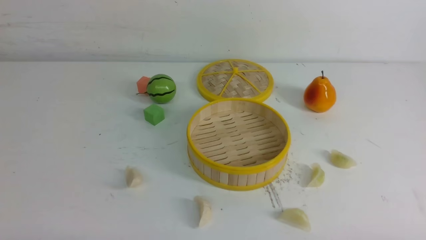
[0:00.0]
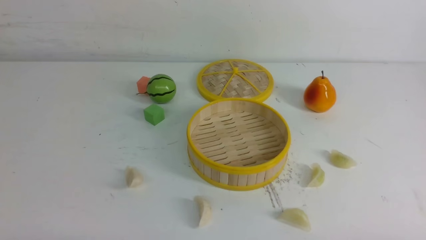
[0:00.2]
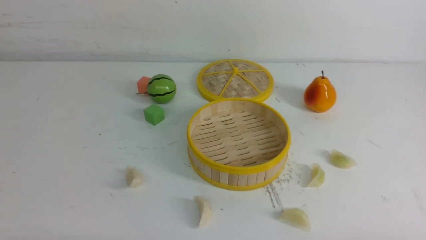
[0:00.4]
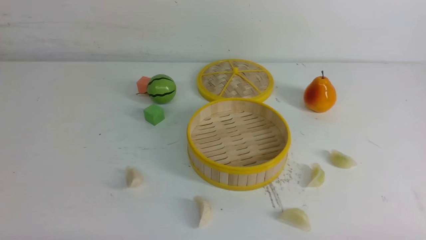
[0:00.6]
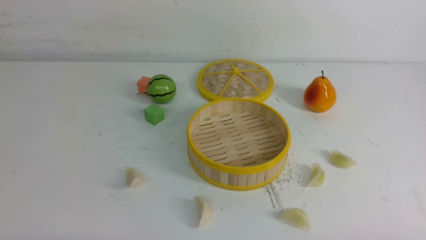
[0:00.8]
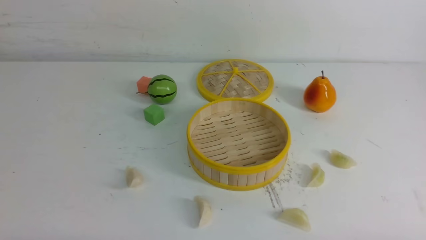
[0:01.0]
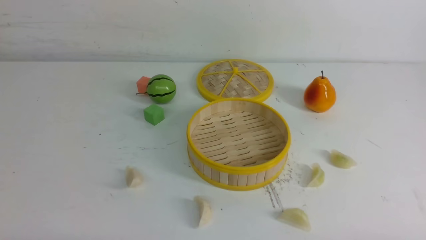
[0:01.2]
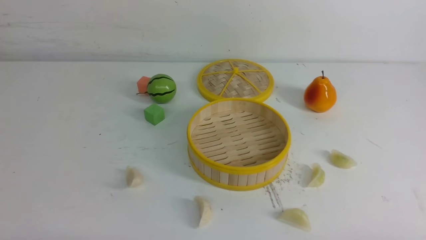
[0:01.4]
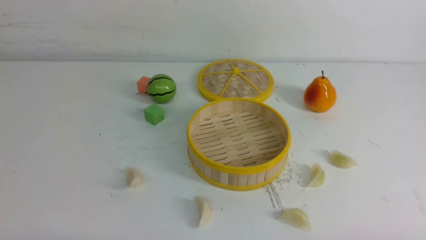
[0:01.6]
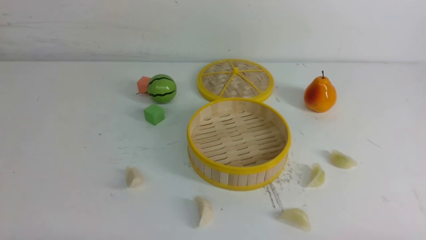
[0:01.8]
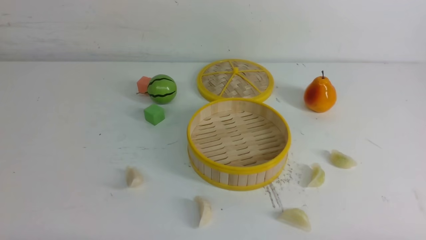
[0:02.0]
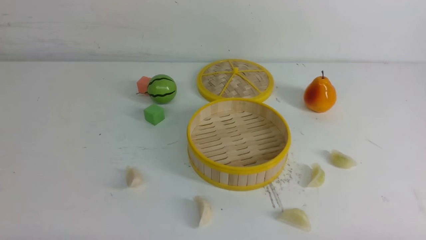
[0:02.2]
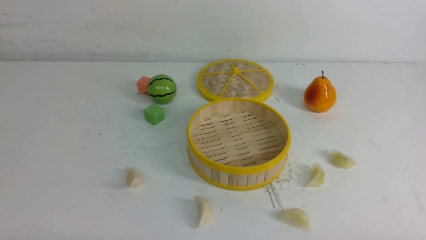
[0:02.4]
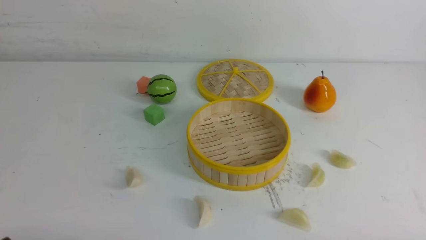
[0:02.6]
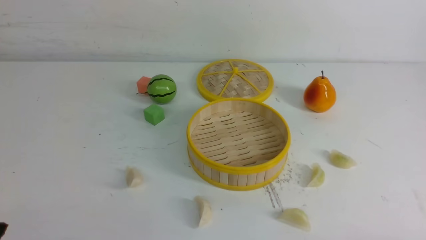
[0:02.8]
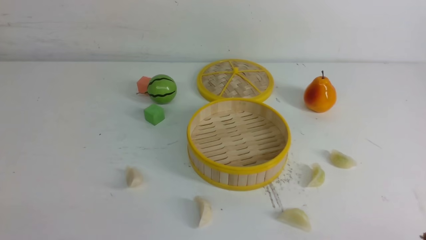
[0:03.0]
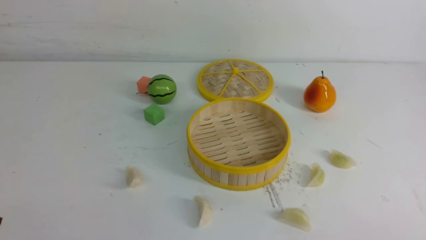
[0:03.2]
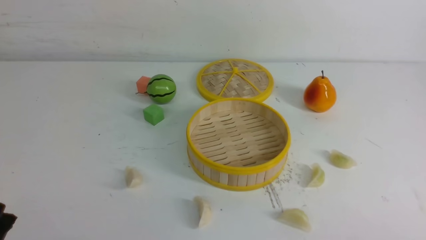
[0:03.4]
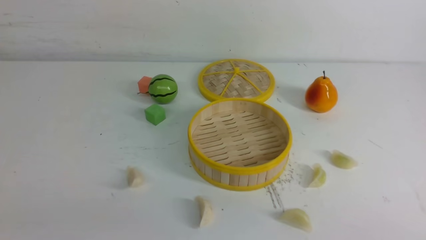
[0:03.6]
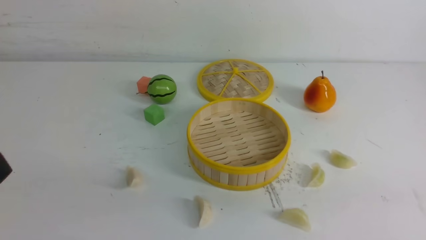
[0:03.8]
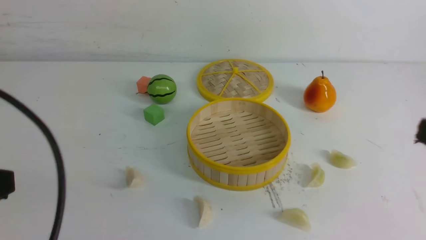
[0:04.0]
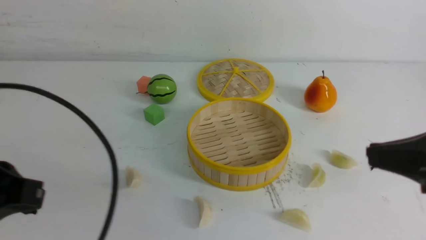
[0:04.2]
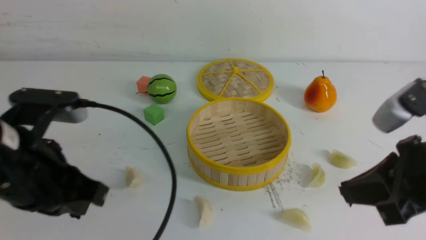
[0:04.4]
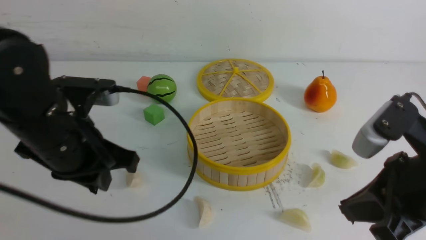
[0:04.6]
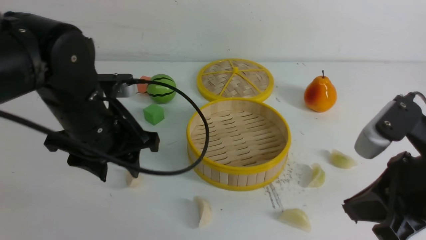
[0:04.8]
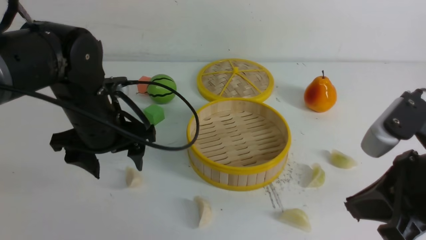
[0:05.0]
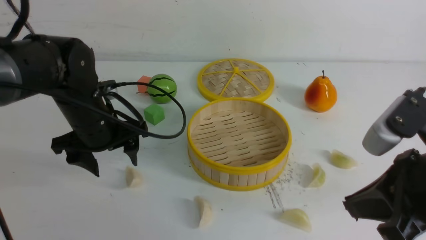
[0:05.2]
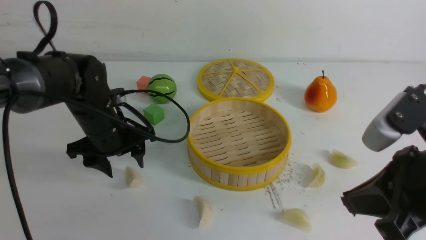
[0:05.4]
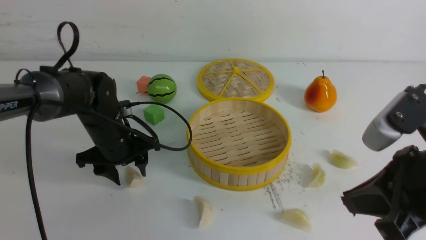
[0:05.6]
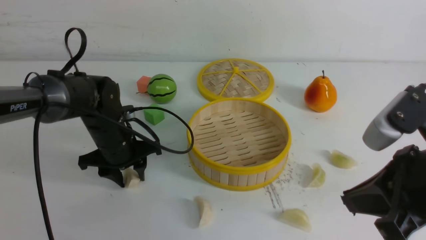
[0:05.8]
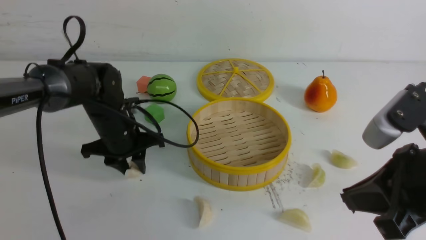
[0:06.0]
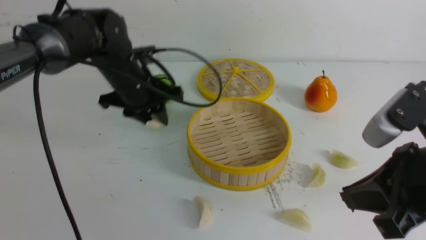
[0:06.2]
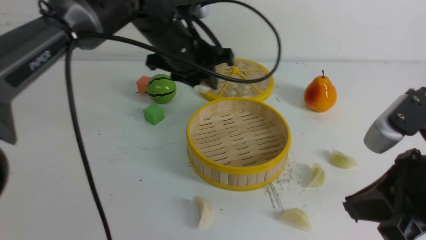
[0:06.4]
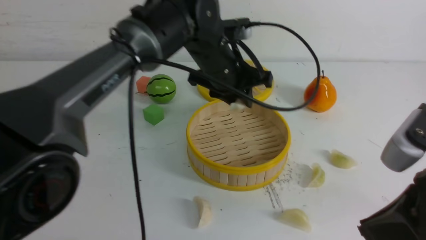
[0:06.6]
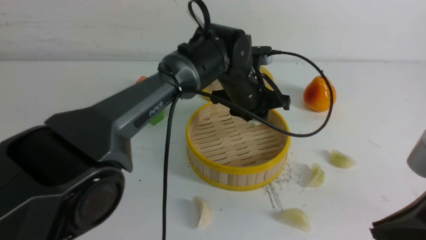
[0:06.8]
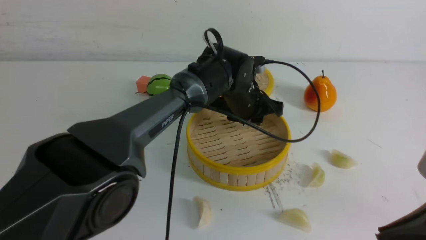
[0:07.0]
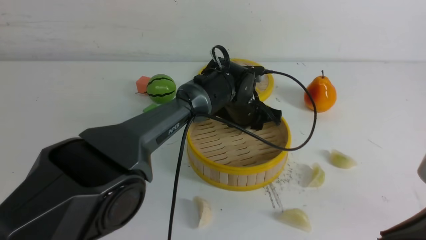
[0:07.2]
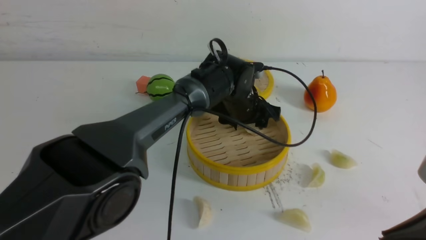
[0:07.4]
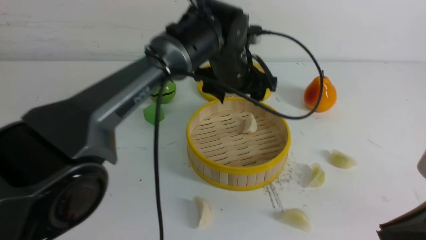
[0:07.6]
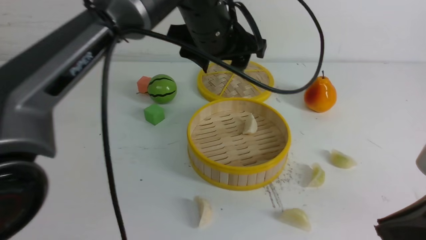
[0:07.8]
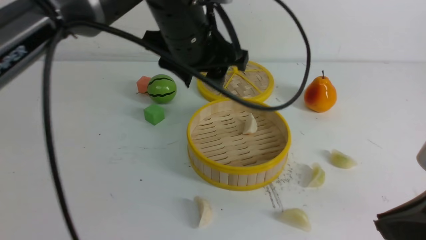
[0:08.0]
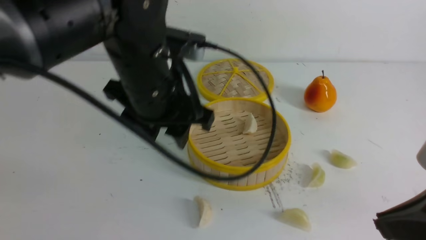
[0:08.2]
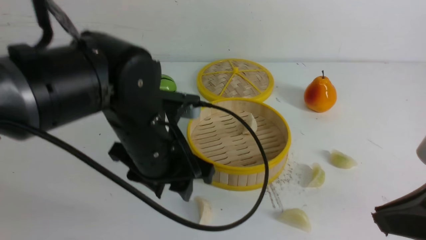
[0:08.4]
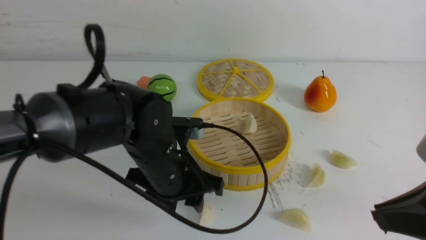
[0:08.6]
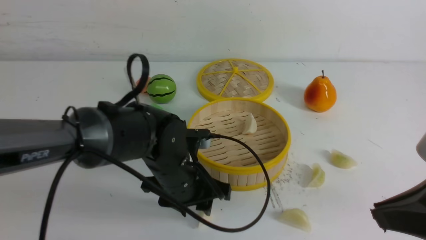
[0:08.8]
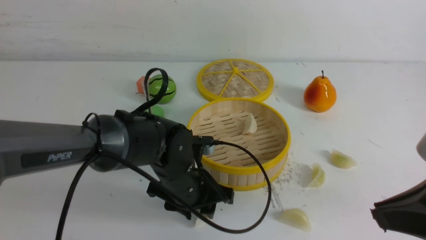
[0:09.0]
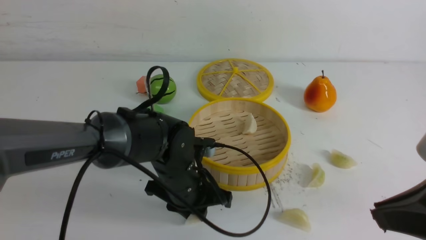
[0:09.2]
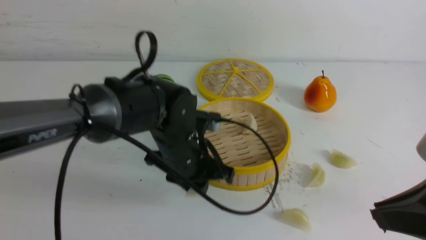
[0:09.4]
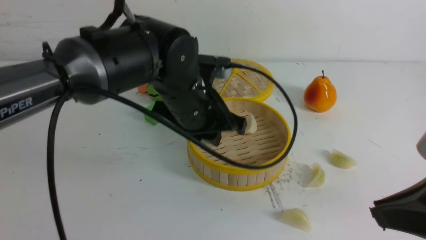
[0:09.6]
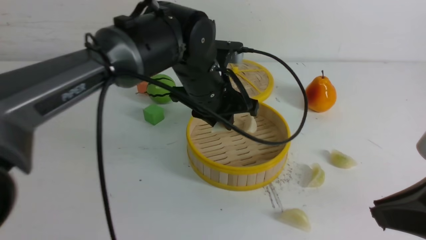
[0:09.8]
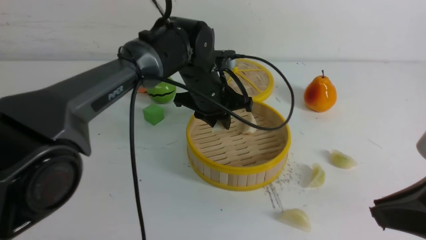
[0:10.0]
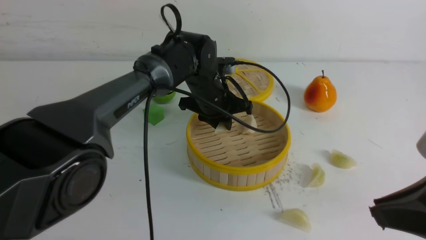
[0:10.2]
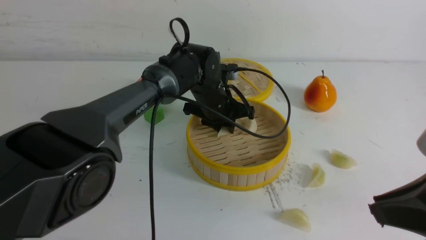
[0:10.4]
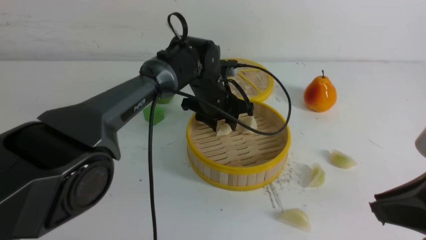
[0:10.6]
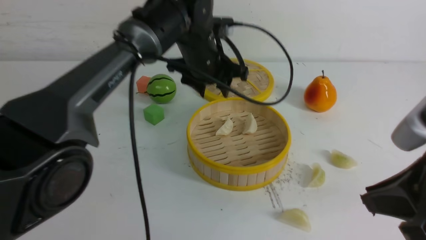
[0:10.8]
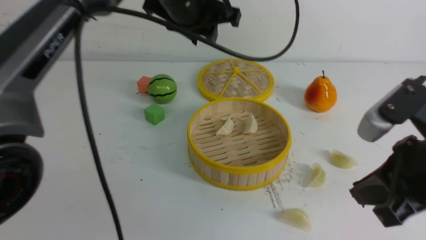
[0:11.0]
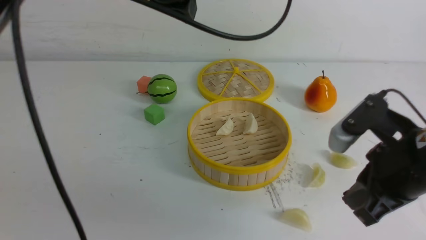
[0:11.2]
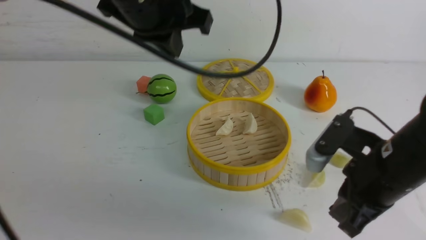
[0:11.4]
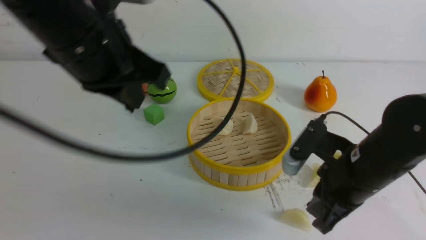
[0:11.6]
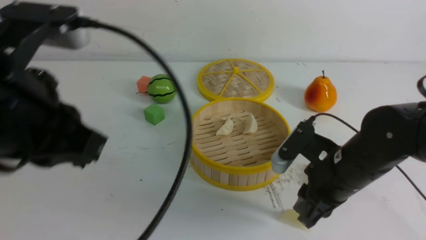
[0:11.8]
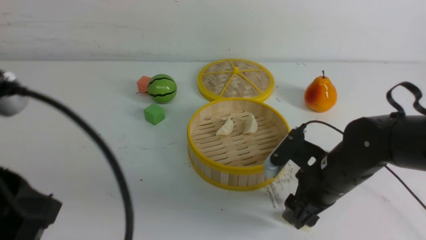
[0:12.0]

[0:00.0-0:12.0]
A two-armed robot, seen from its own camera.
Task of the whole recording: put the dumplings into the steamer on the white table.
Step, 0:00.0 to 0:06.0: use the left arm to grab a dumpling.
Step, 0:06.2 to 0:07.4: use the left arm to put the dumpling into the steamer.
Step, 0:07.6 to 0:09.2: use the left arm to grab a dumpling.
Step, 0:09.4 to 0:10.6: use the left arm to put the dumpling into the steamer.
0:00.0 to 0:01.6: Neither gripper changes place.
0:03.0 to 0:04.4: The left gripper moves forward, upward and to the right, approximately 20 cm, and closes up, while the right gripper goes some 20 cm upward, forward and to the left, and closes up.
0:04.4 to 0:06.0: The left gripper is displaced forward and downward by approximately 25 cm, and opens up.
0:06.0 to 0:07.6: The right gripper moves backward, approximately 5 cm, while the left gripper moves to the right and upward, some 20 cm, and opens up.
0:07.6 to 0:09.0: The left gripper shifts approximately 20 cm downward, backward and to the left, and closes its fingers.
0:09.0 to 0:10.4: The left gripper moves forward, some 15 cm.
0:10.4 to 0:12.0: The right gripper moves downward and forward, approximately 25 cm, and opens its fingers; the left gripper heads backward, to the left and upward, covering about 40 cm, and closes up.

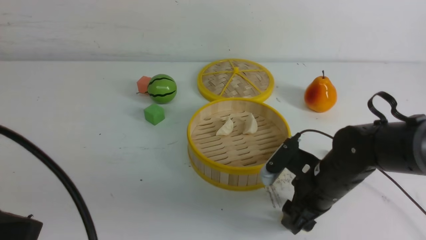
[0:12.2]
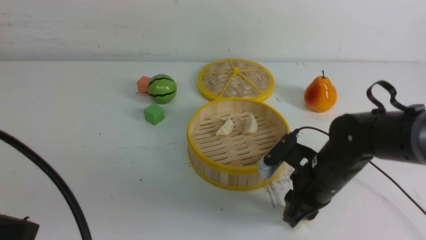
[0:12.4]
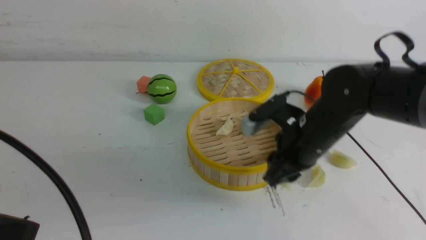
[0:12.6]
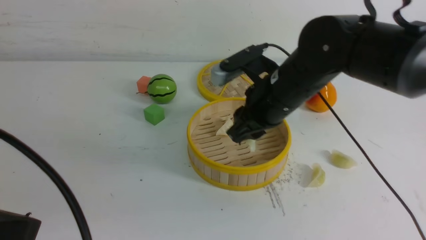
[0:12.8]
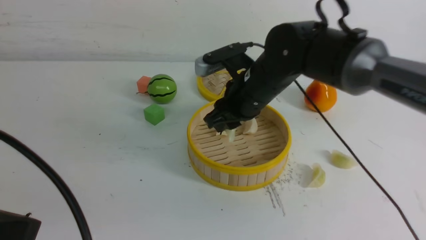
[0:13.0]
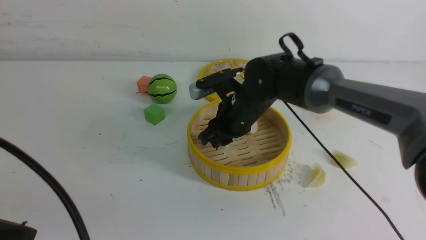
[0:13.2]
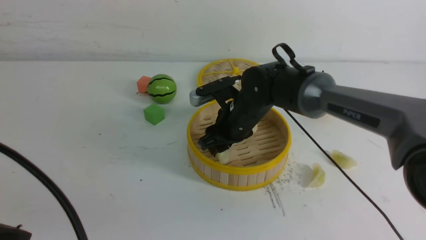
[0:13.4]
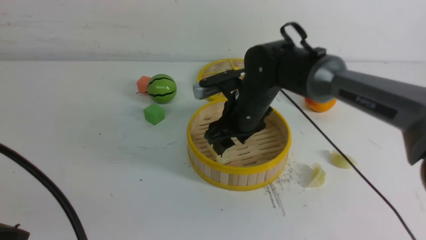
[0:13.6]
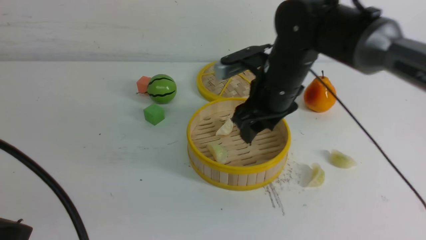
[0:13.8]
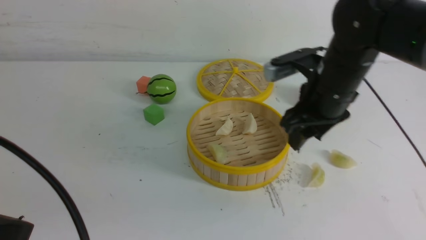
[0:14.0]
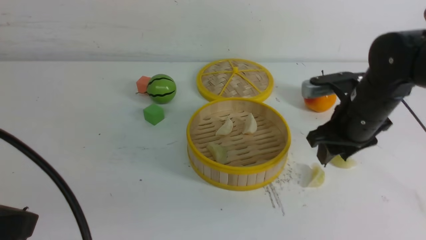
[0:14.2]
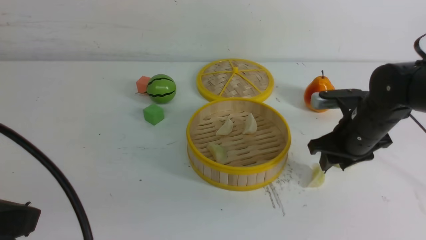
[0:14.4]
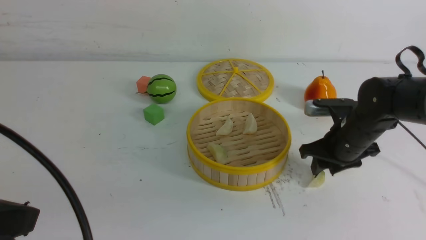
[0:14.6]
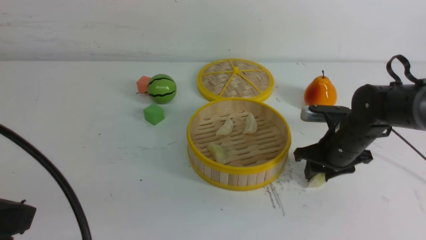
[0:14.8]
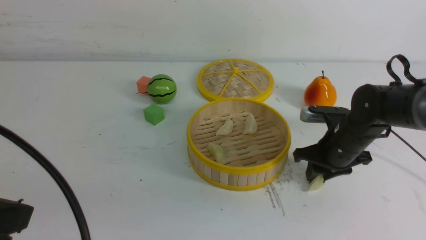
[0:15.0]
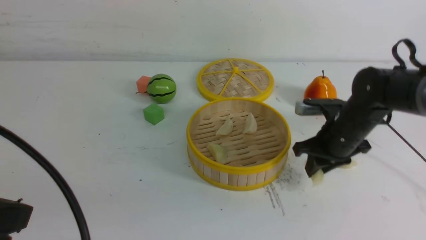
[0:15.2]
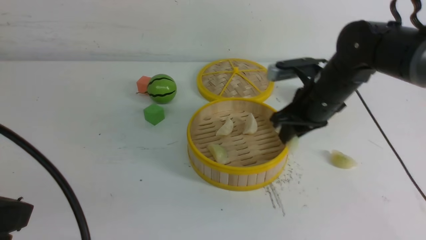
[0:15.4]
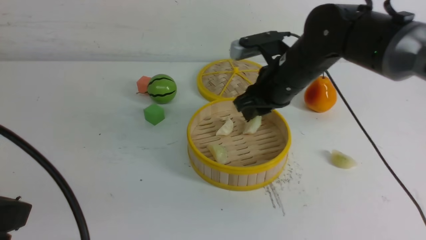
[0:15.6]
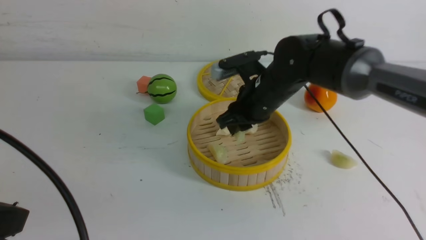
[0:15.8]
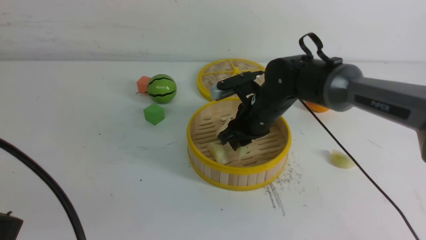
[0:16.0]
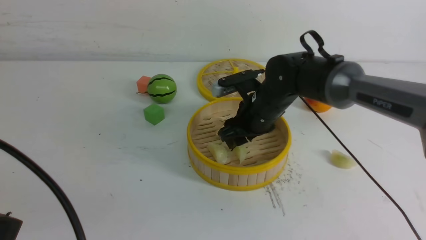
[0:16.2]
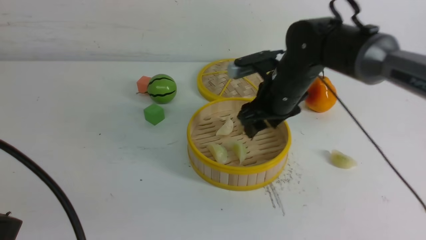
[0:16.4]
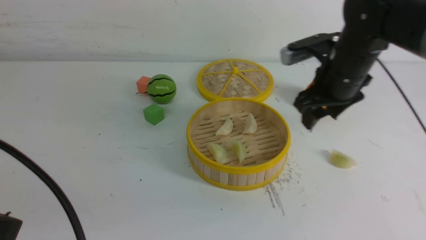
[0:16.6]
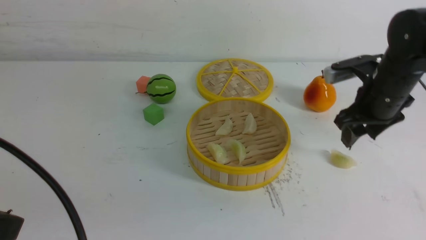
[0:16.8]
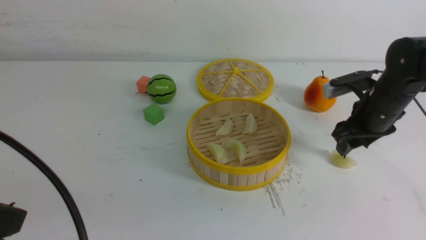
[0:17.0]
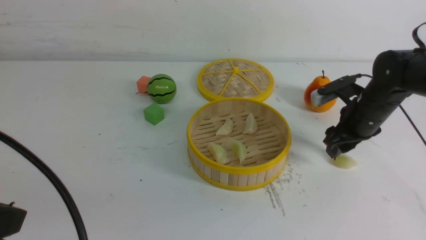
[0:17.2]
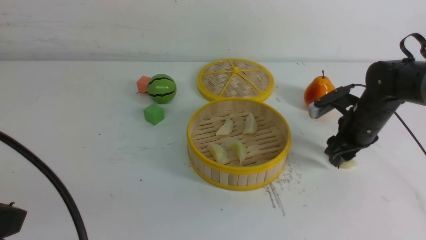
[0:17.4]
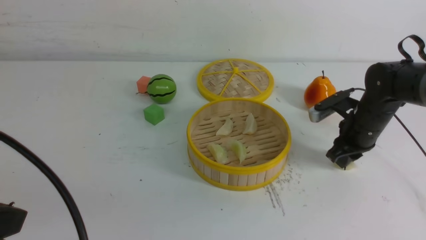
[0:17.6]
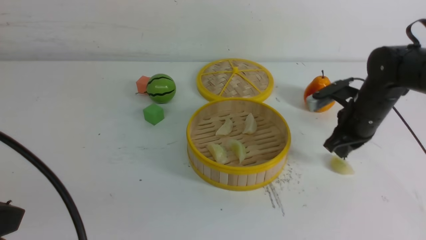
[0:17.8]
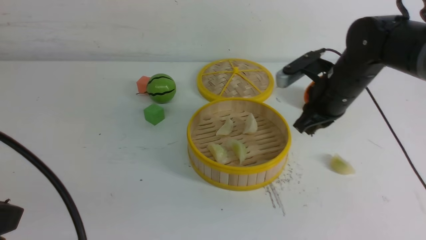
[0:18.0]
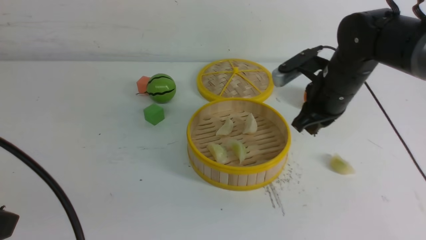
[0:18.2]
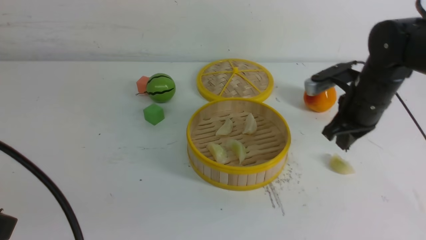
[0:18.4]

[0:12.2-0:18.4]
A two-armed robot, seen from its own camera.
Task of the whole recording: put the dumplings into the steamer on the white table.
Step, 0:12.6 to 0:13.4: use the right arm to put the dumpling into the steamer.
Step, 0:13.6 to 0:15.0: use the right arm to grab a dumpling.
Step, 0:15.2 to 0:16.0: use the right arm to put the dumpling into the steamer.
0:12.2 to 0:13.8: The right gripper shifts roughly 15 cm upward, forward and to the left.
0:13.8 to 0:15.4: The right gripper closes up.
0:15.4 to 0:16.8: The right gripper travels to the right by roughly 10 cm, and opens.
0:16.8 to 0:18.4: The right gripper closes up.
